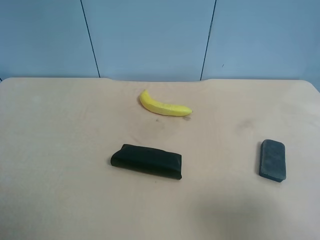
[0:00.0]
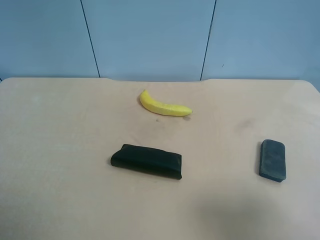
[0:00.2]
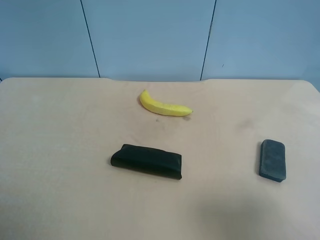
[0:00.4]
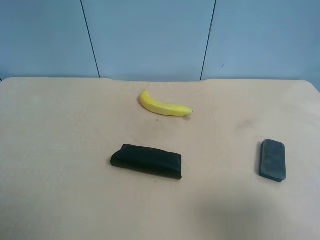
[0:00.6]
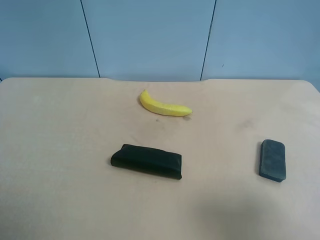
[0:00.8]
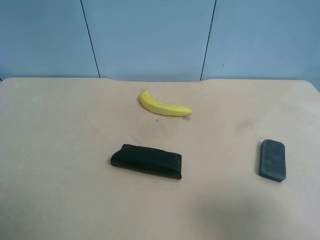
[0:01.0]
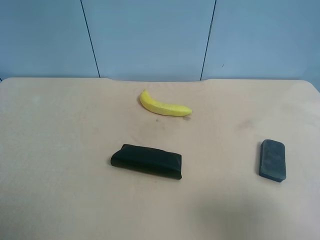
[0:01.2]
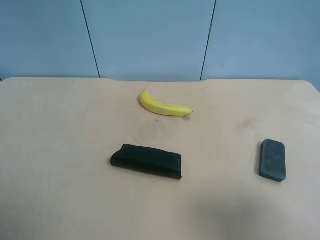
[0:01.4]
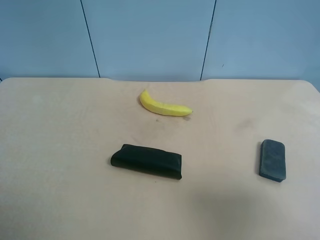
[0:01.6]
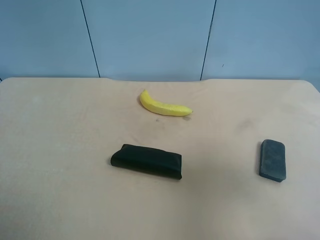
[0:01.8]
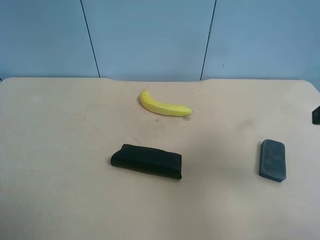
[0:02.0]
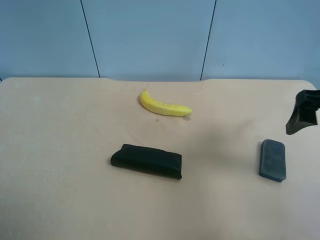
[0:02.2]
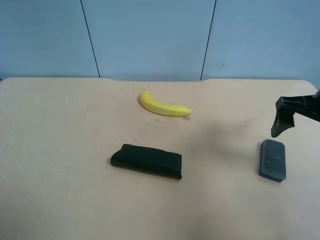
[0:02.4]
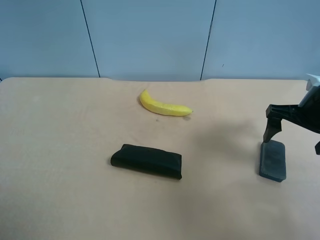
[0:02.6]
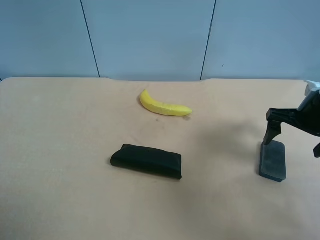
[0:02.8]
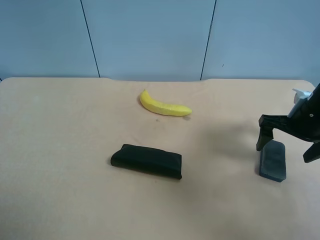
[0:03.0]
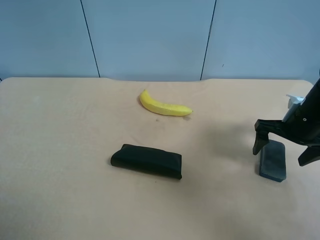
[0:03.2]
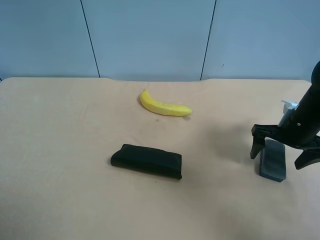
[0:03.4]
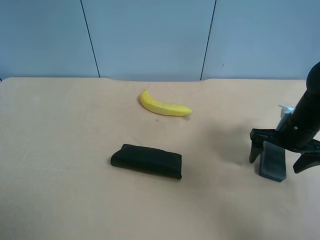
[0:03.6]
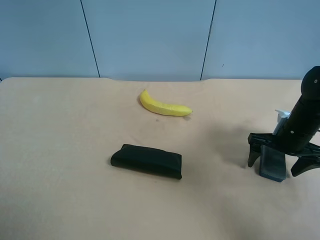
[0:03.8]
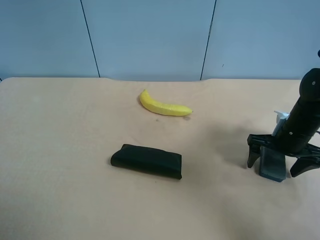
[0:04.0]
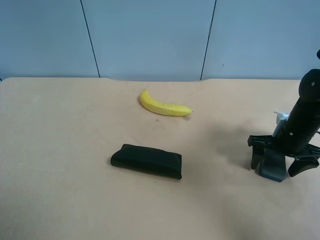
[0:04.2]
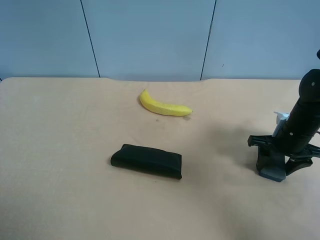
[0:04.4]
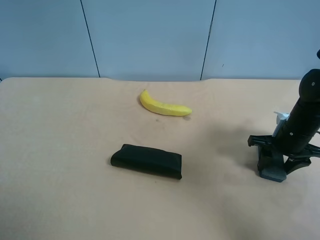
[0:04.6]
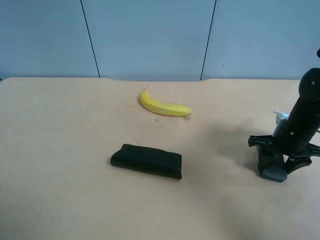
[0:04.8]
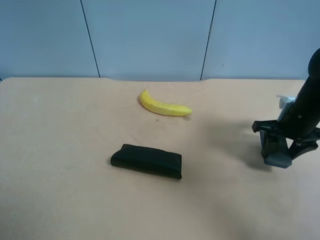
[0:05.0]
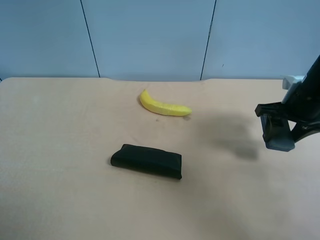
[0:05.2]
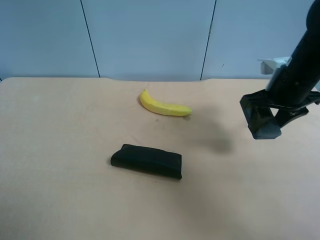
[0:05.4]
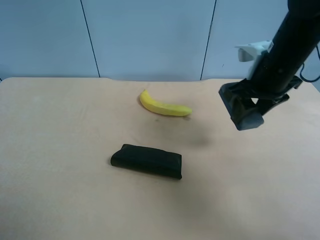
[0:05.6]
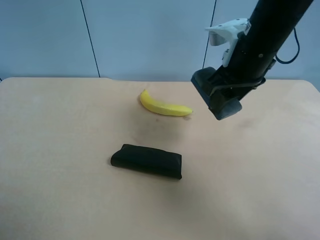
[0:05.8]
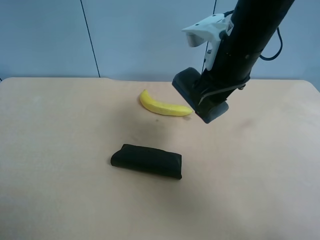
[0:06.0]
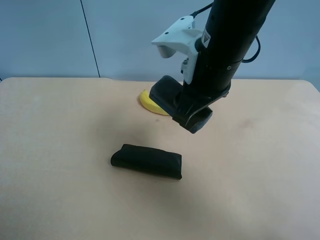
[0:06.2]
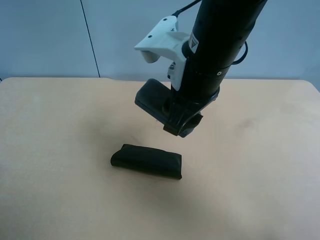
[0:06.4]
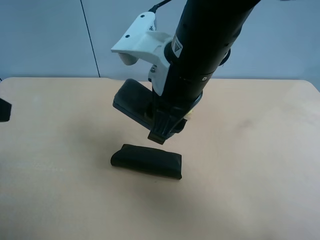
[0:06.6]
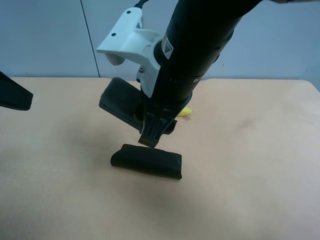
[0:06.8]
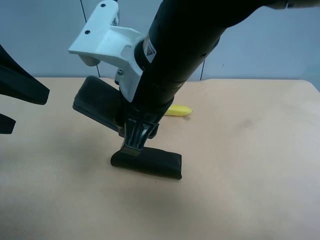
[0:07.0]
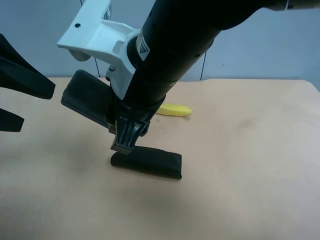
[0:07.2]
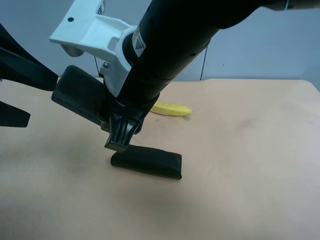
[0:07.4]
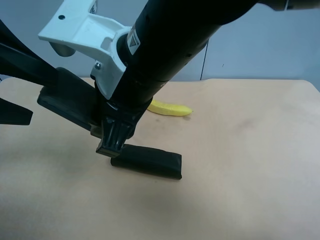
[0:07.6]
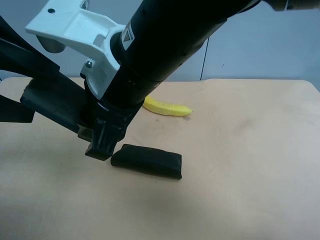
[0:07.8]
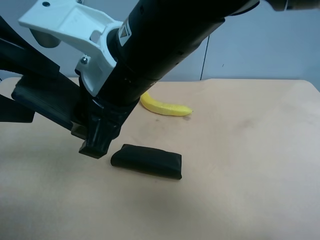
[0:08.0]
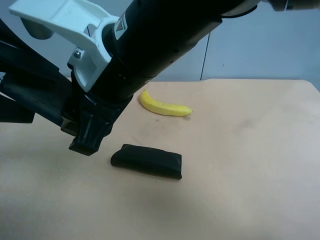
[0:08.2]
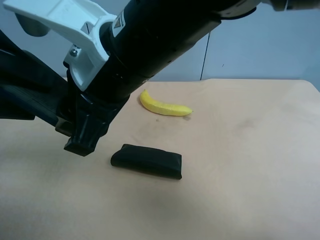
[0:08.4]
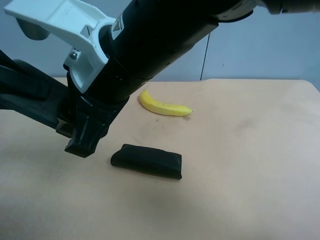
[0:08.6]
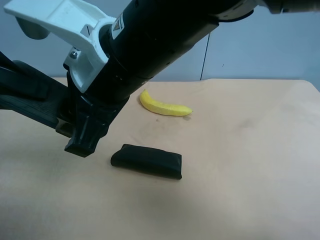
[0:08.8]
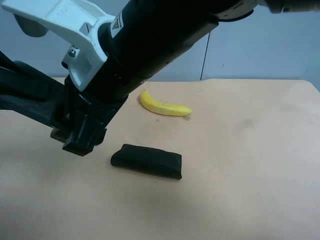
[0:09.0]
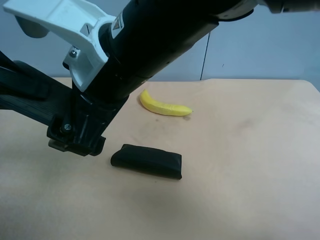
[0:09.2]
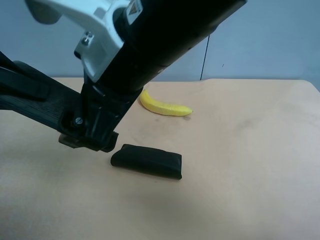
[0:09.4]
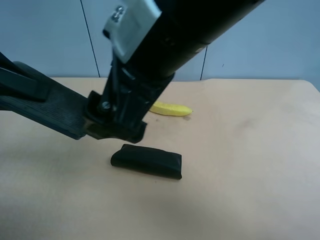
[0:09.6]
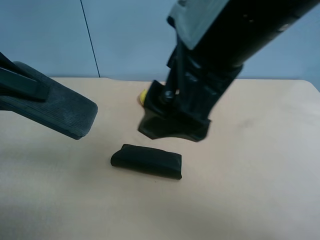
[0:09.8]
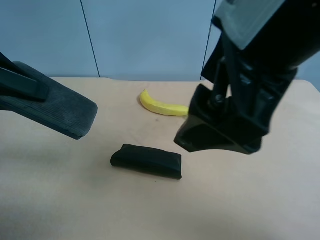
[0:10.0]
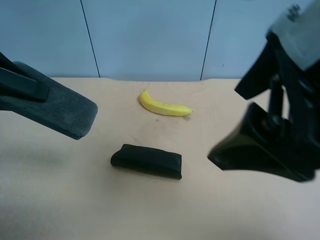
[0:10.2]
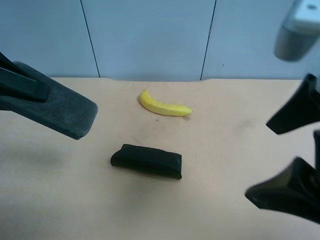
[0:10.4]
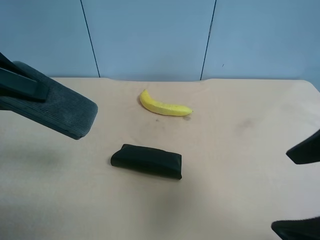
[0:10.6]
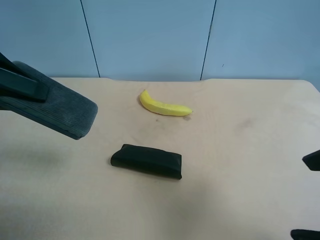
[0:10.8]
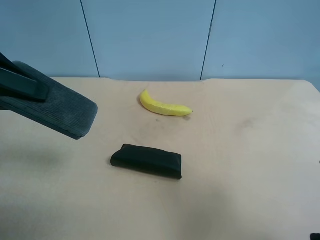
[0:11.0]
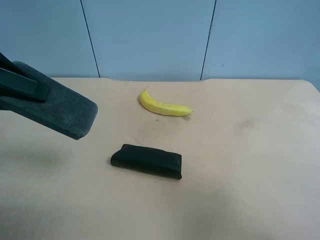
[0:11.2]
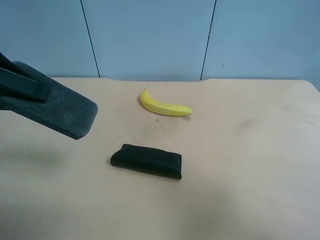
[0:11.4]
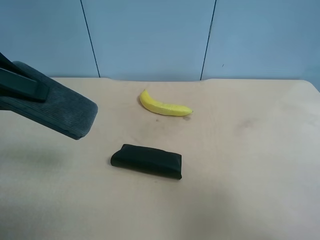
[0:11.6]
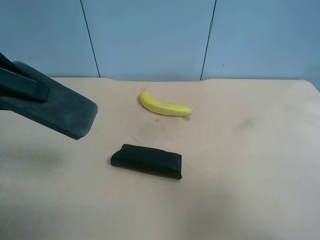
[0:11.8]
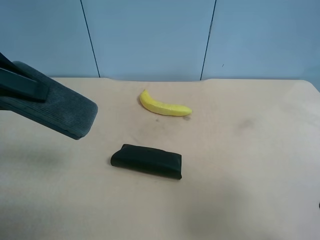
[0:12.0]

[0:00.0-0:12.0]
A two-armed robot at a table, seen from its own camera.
Task of the whole recording: use the right gripper to pick up the item and transfer it from the right gripper to the left gripper.
1.6 to 3.0 s: The right gripper travels forward and downward by about 30 cm.
3.0 to 4.4 s: The right gripper travels downward by about 5 cm, and closes its fingers.
4.4 to 6.0 s: The right gripper goes roughly 25 cm to the left and upward.
6.0 to 7.6 s: The left gripper heads forward, covering roughly 15 cm, while the right gripper travels to the left and backward by some 15 cm.
7.6 to 9.0 s: The right gripper opens. Meanwhile the left gripper closes.
9.0 to 10.4 s: The right gripper heads to the right and backward, covering roughly 20 cm.
10.4 to 12.0 s: The right gripper heads to the right, downward and backward, covering some 15 cm.

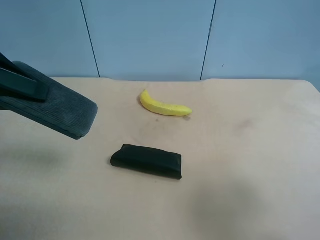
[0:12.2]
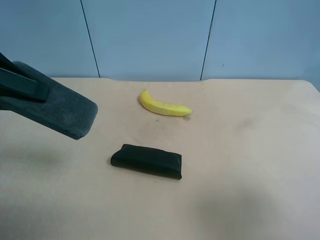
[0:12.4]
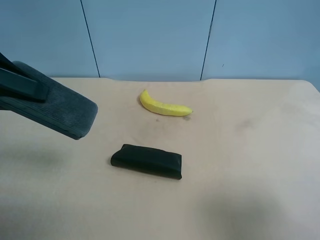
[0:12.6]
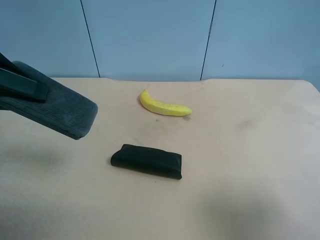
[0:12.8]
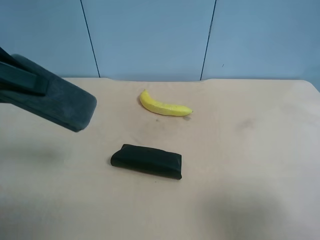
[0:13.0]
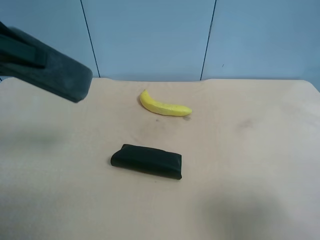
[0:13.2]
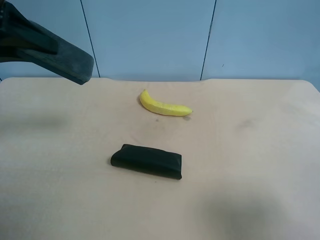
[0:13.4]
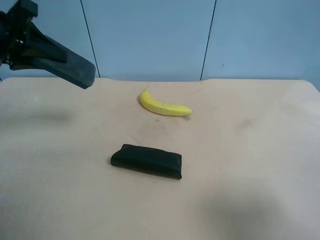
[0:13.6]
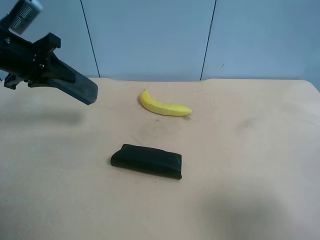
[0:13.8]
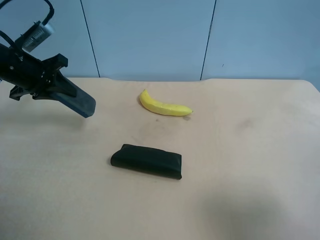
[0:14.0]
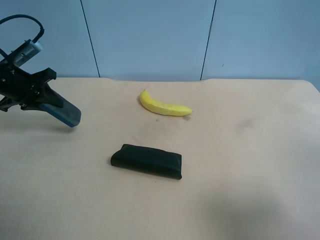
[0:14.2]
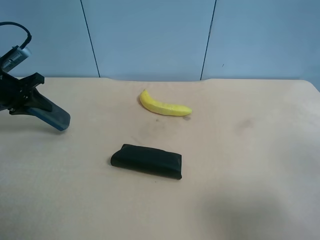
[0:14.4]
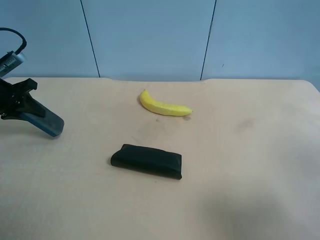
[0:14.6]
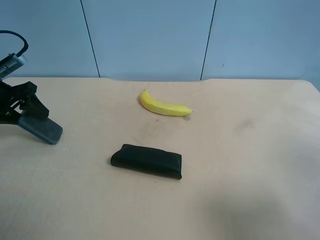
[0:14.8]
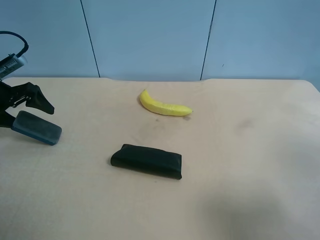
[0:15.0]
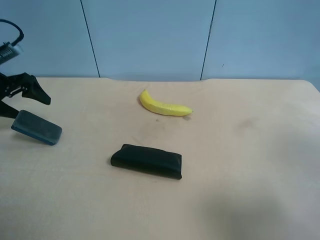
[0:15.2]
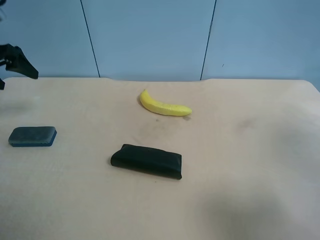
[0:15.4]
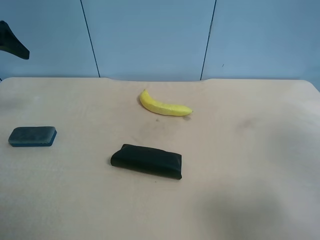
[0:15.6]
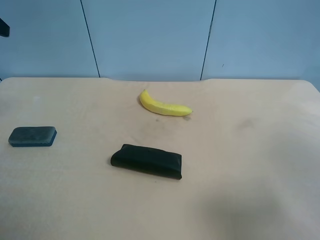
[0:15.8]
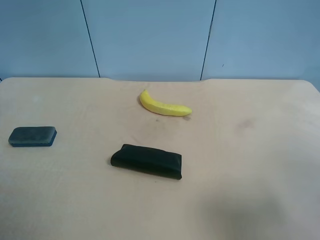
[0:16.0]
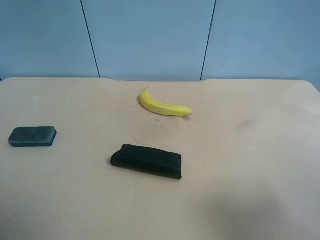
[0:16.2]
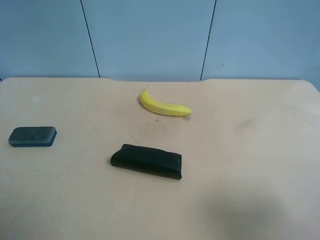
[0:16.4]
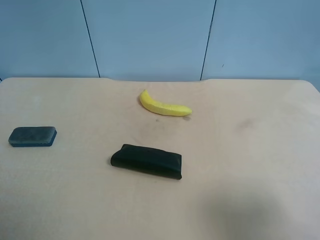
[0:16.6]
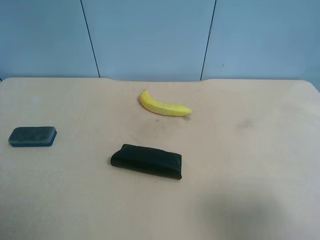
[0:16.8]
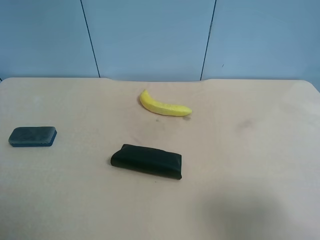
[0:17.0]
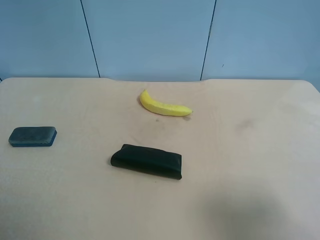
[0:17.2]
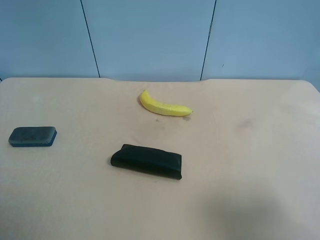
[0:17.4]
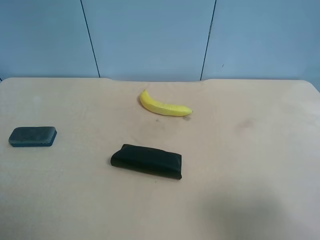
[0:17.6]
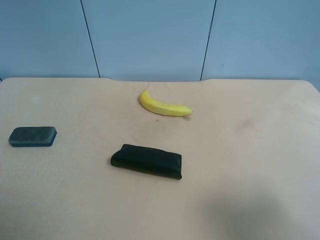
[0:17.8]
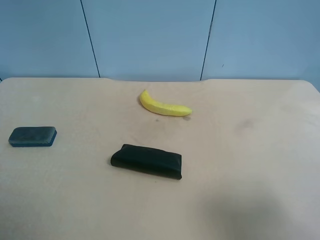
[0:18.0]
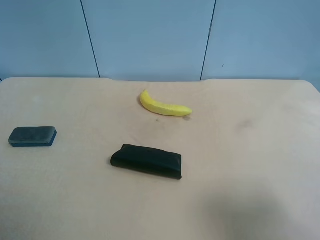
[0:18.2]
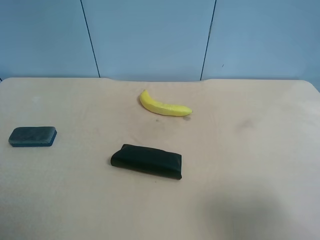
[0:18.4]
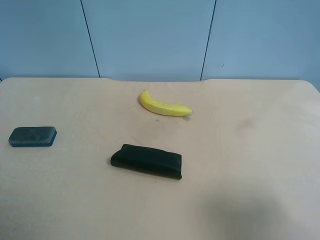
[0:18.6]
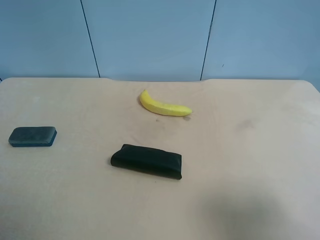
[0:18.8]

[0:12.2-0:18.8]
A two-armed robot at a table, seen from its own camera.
Task of the whole recording: use the right gripper to pick up the item and transfer it from the right gripper to the left gripper.
12.2 to 13.8 s: The left gripper is displaced forward and downward by roughly 15 cm.
13.8 to 15.4 s: The left gripper shifts roughly 10 cm to the left, and opens up.
15.4 to 17.2 s: The left gripper shifts approximately 35 cm backward.

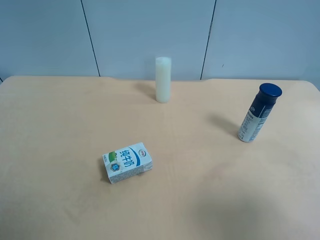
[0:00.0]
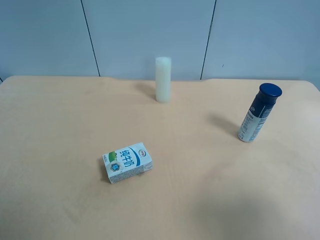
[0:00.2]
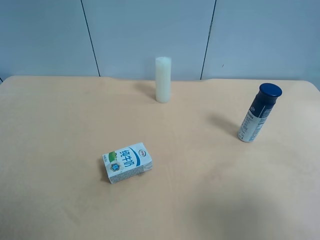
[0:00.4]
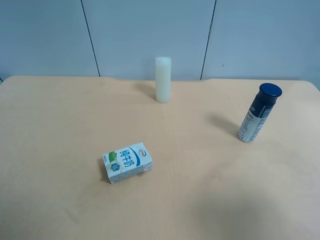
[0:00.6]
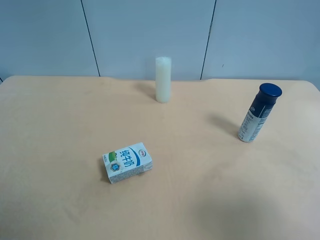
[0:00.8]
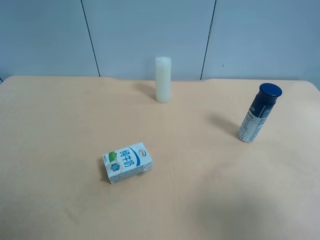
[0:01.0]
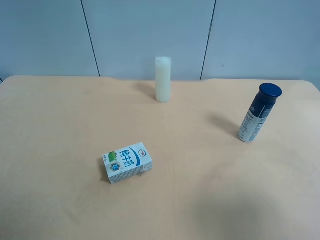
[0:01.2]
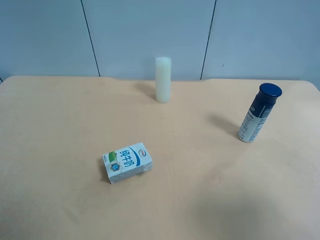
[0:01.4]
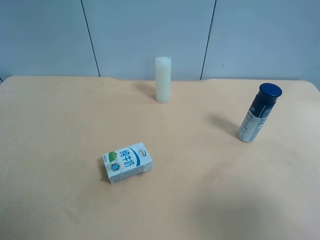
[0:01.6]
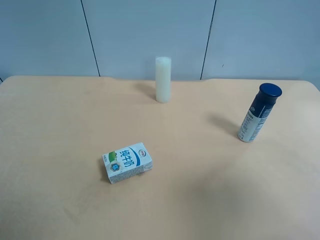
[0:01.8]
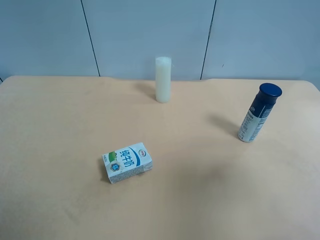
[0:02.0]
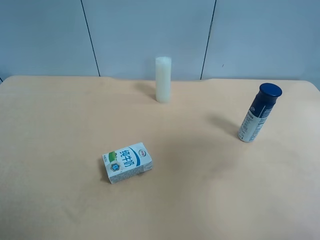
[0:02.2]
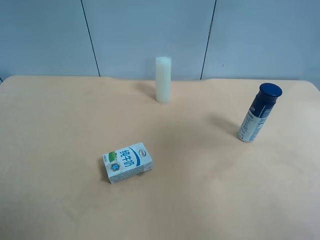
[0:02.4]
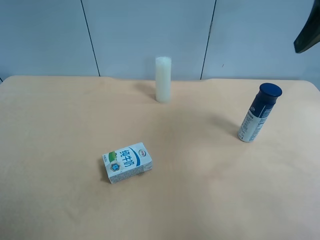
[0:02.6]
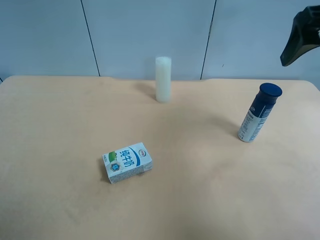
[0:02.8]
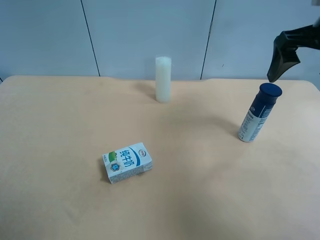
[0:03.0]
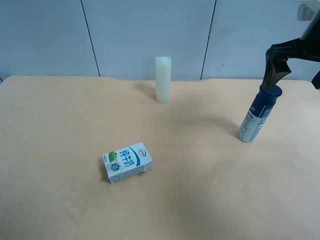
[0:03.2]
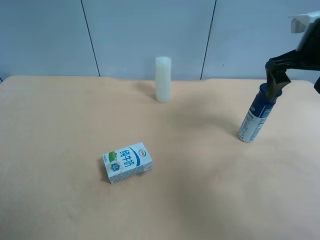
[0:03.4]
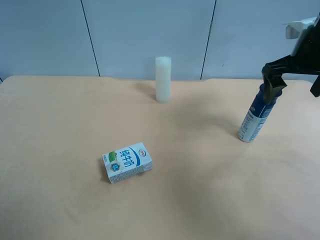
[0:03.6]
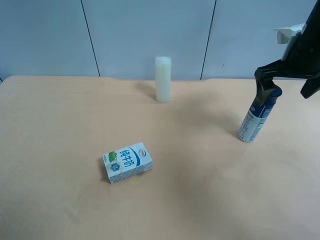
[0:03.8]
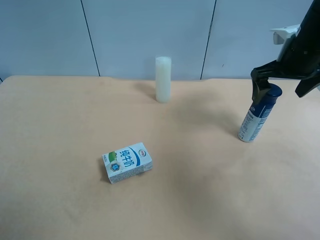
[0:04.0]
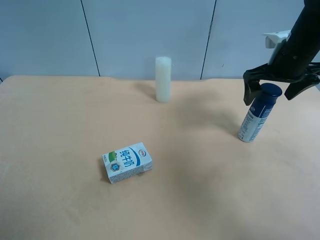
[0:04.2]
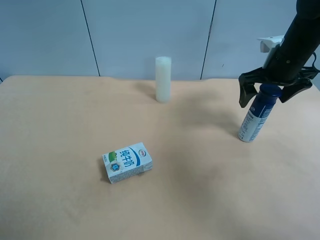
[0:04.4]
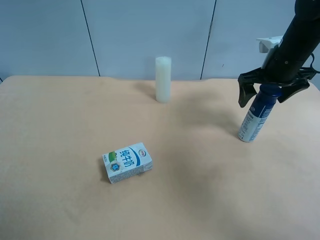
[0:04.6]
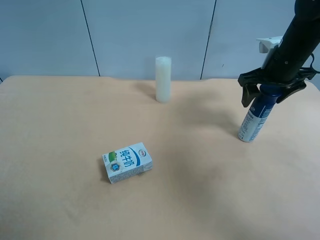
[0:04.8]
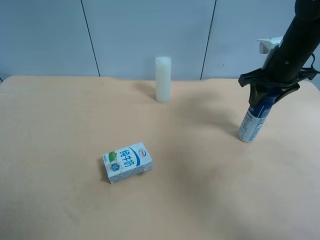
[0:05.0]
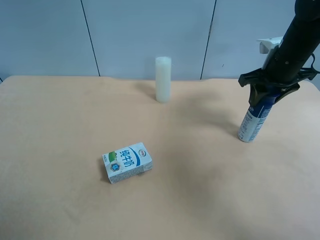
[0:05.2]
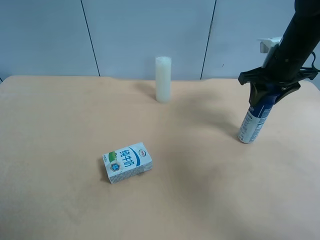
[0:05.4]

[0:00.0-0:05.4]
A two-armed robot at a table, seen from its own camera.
Task of the whole recording: use the right gripper to pick up the item and transfer it from the right gripper to the left gripper.
0.0 to 1.4 s: Neither gripper changes place.
1.4 to 2.8 s: The right gripper shifts about 25 cm forward.
2.8 to 4.0 s: The right gripper travels downward and forward by approximately 15 cm.
4.0 to 5.4 s: The right gripper closes.
